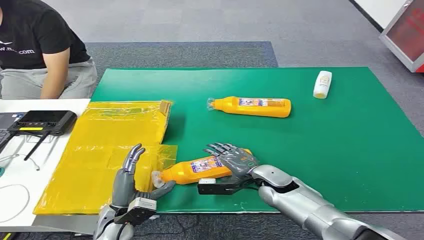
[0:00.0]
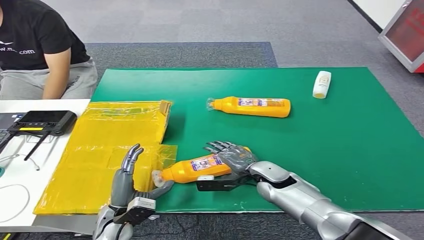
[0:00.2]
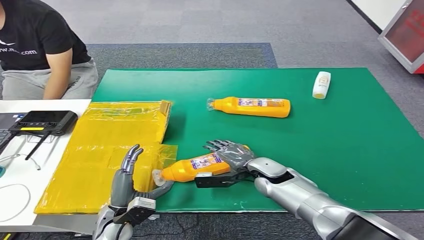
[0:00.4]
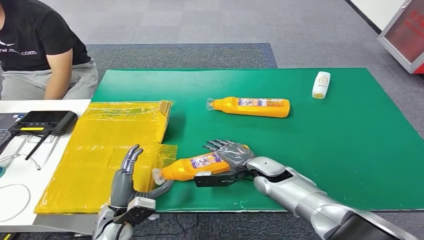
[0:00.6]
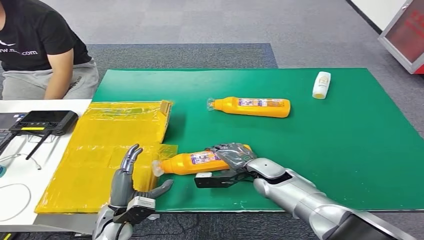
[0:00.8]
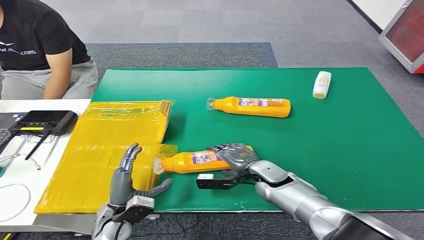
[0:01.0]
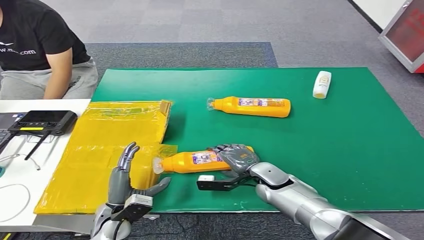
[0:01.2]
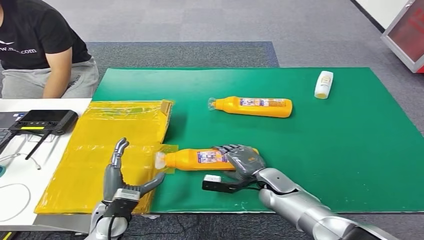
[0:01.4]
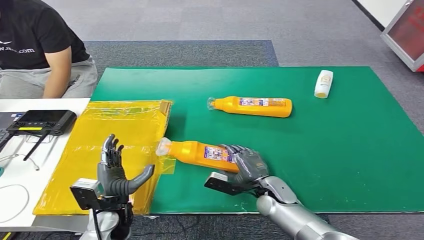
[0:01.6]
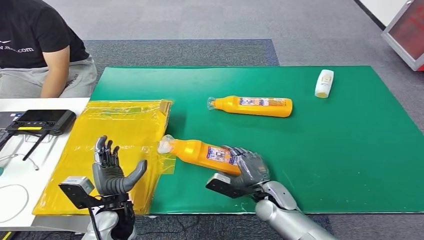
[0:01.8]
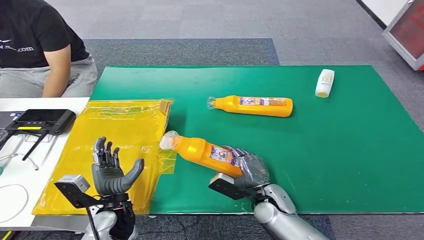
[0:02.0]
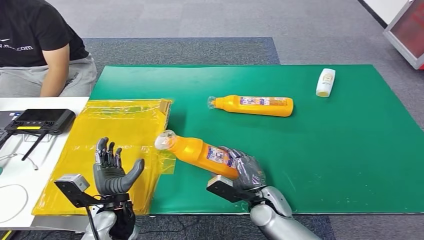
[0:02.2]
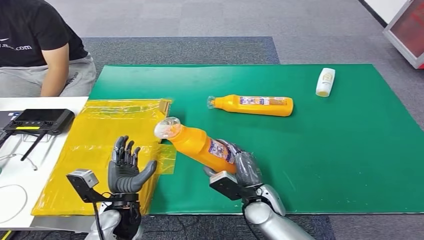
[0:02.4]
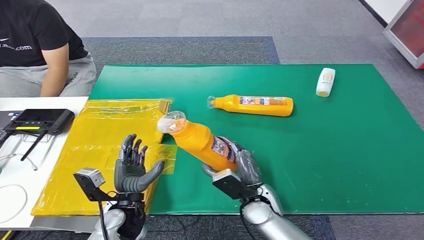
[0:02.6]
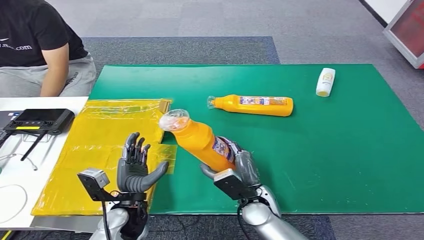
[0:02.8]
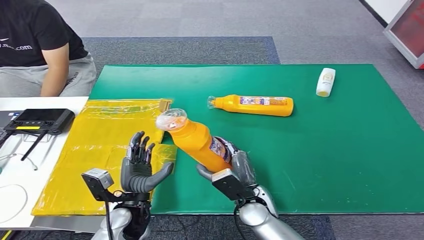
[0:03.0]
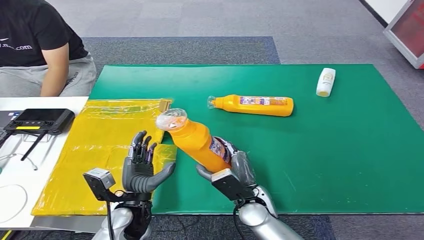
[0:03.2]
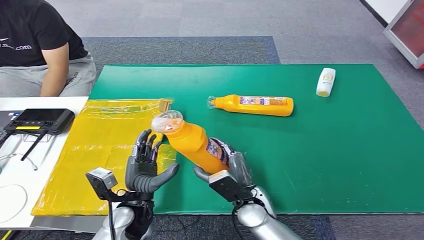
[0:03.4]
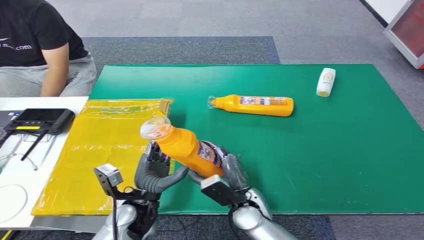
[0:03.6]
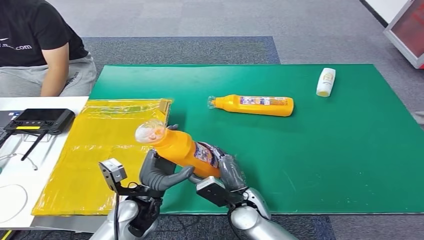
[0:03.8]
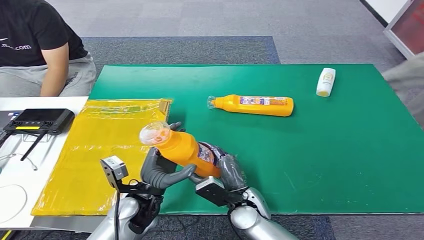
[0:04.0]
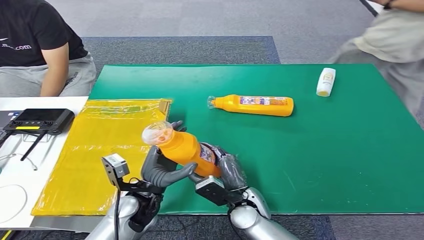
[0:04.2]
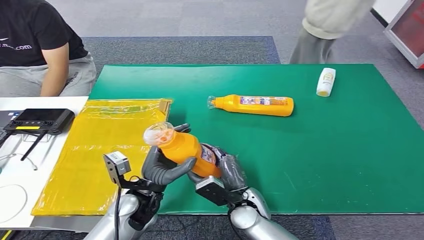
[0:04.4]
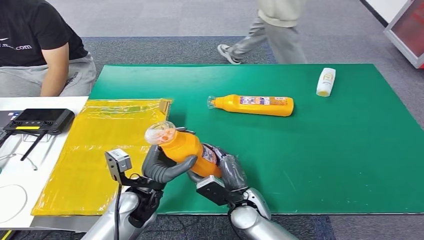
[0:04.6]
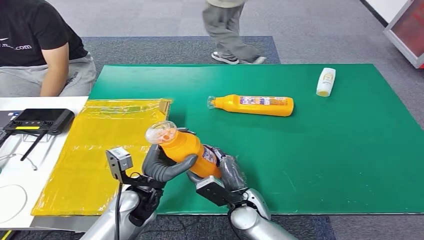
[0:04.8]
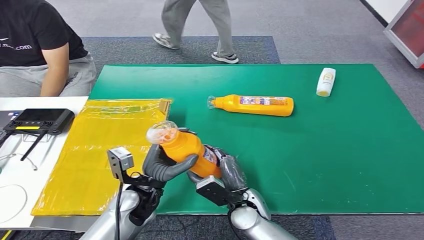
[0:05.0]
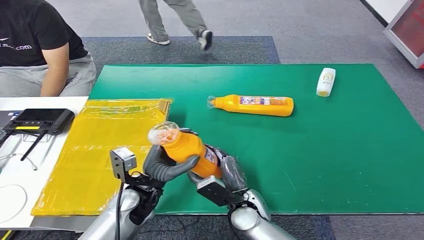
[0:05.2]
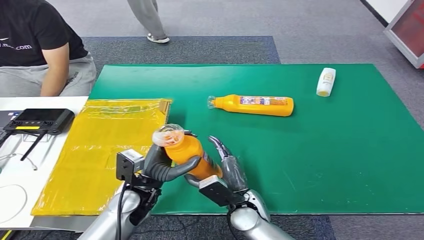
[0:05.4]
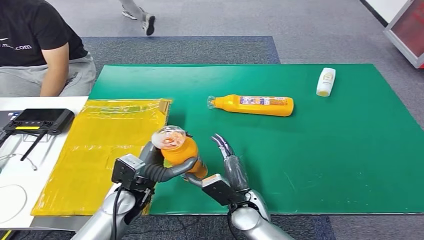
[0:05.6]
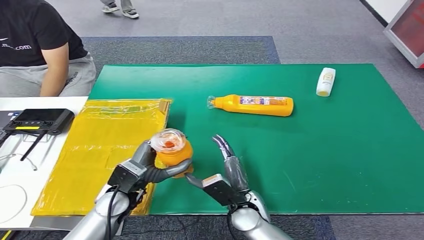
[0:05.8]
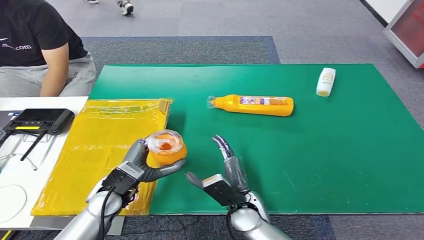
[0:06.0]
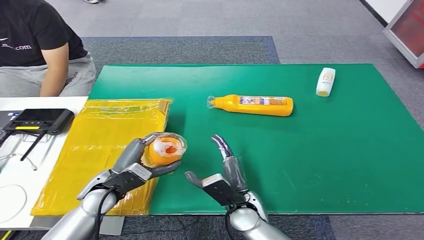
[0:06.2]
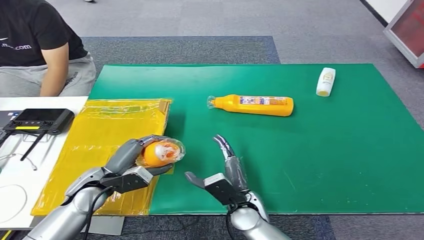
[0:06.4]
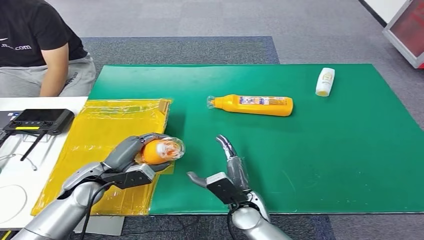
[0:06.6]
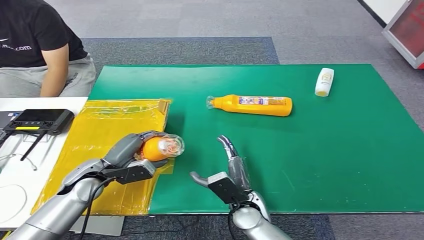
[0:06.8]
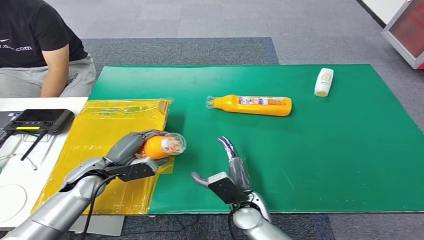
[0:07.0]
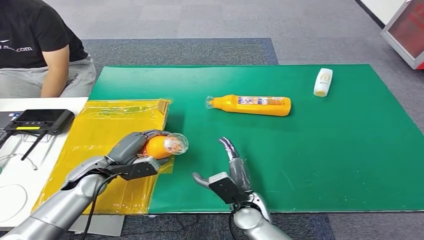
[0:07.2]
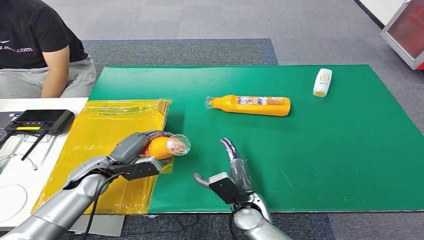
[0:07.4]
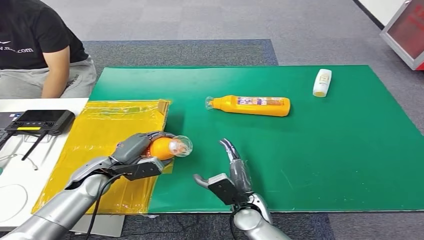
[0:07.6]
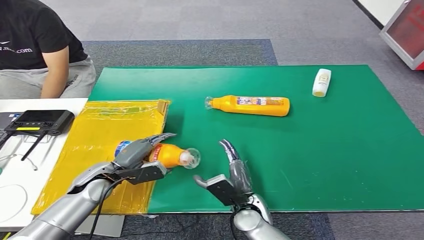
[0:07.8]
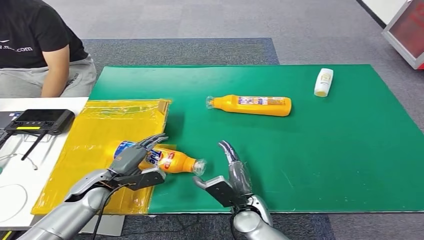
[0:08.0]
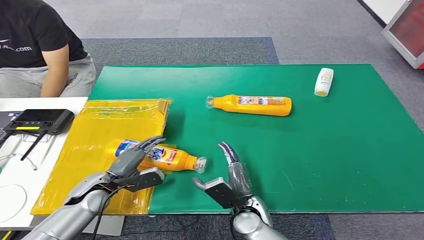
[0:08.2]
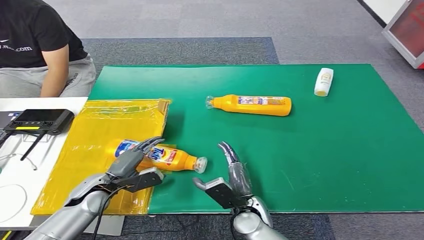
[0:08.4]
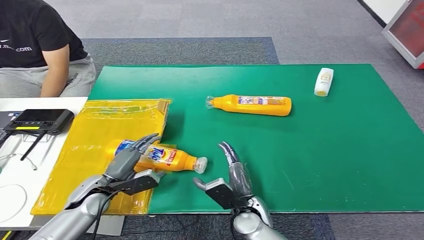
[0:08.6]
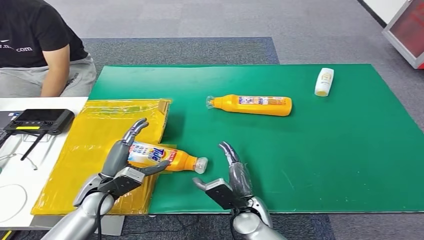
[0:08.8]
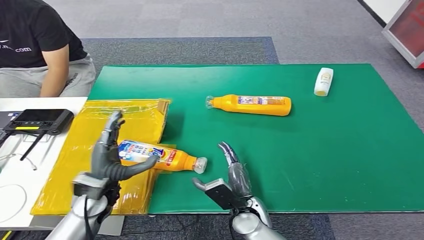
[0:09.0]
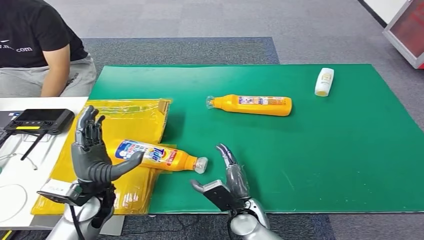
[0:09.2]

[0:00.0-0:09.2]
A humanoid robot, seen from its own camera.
Step, 0:00.0 to 0:02.4: Pick up the bottle from the table.
Step, 0:02.6 to 0:09.2: Turn the bottle to the front side.
0:04.6 to 0:06.2: The left hand is displaced to the left by some 10 cm.
0:06.2 to 0:07.6: The left hand changes place by about 5 cm.
0:07.6 to 0:09.2: The left hand is displaced backward by roughly 5 cm.

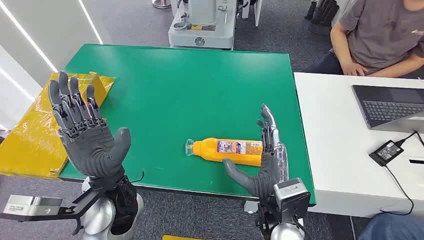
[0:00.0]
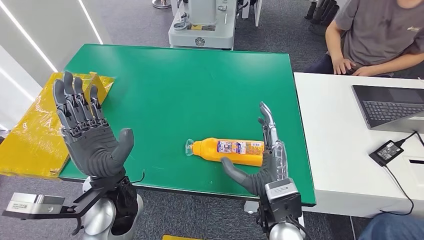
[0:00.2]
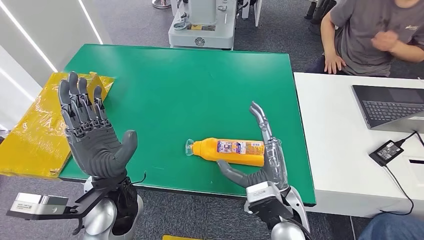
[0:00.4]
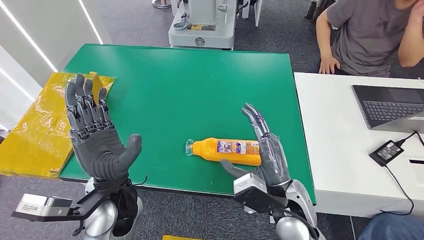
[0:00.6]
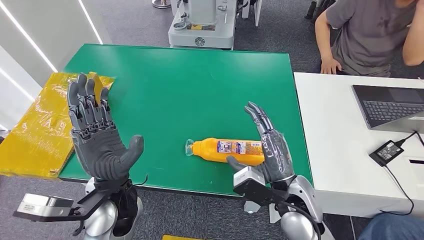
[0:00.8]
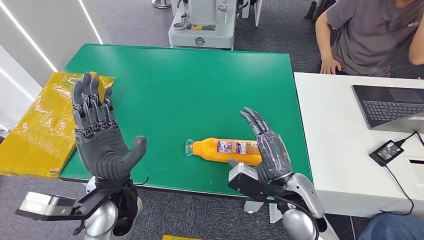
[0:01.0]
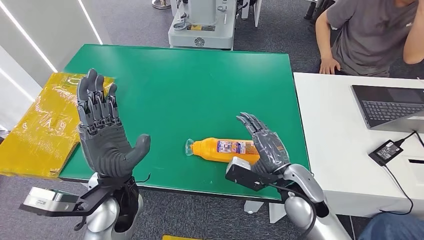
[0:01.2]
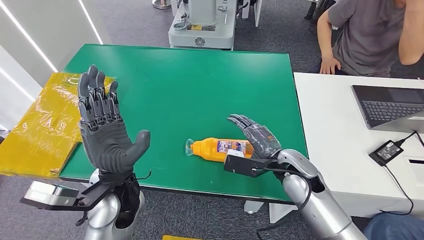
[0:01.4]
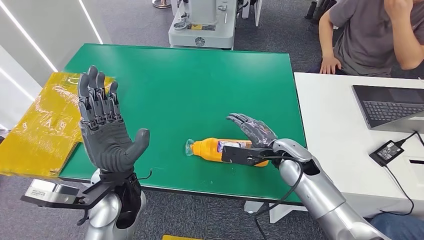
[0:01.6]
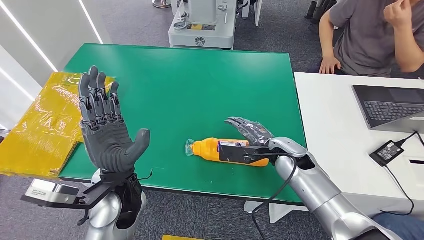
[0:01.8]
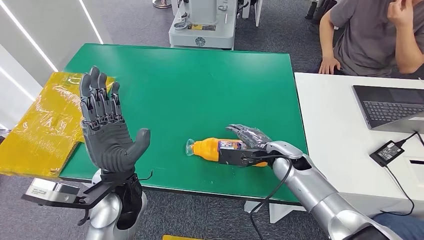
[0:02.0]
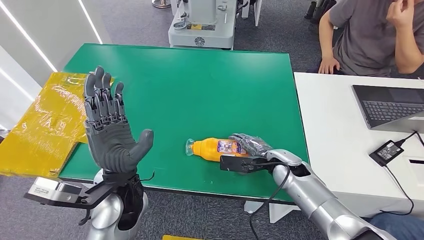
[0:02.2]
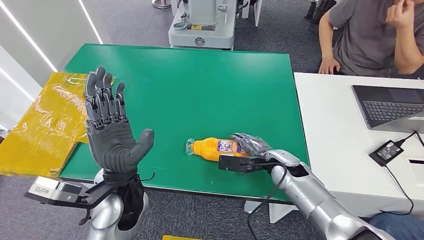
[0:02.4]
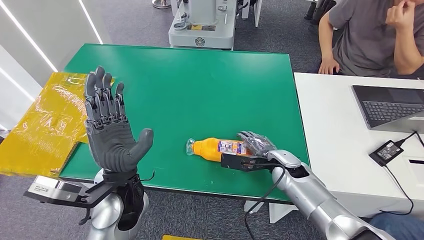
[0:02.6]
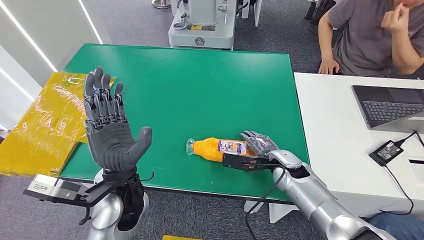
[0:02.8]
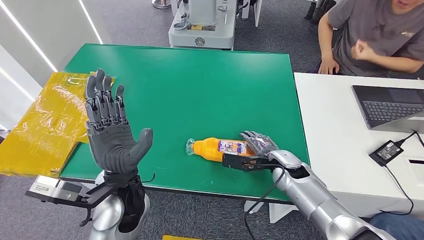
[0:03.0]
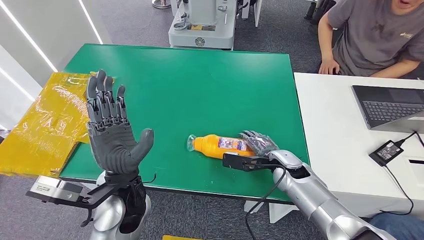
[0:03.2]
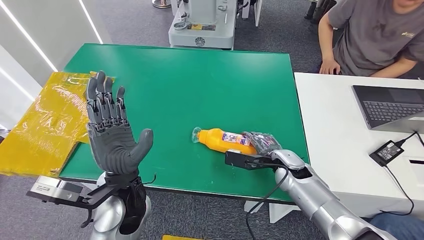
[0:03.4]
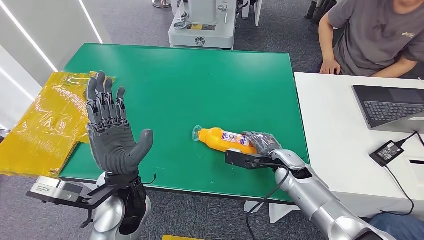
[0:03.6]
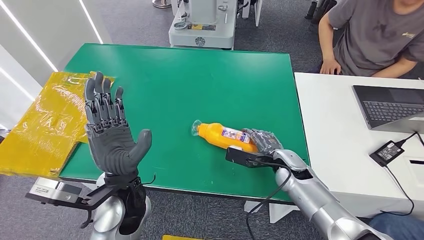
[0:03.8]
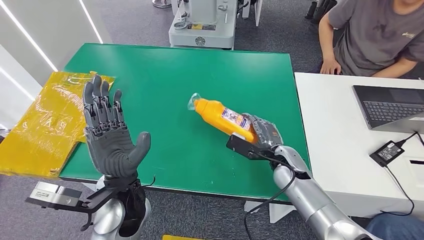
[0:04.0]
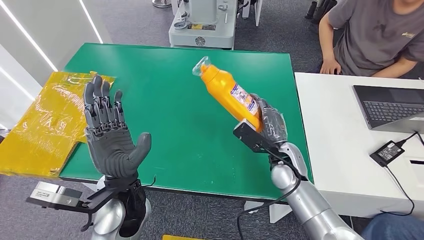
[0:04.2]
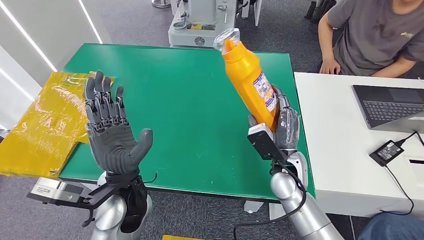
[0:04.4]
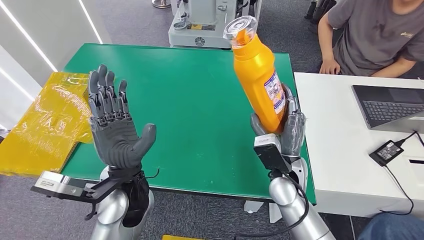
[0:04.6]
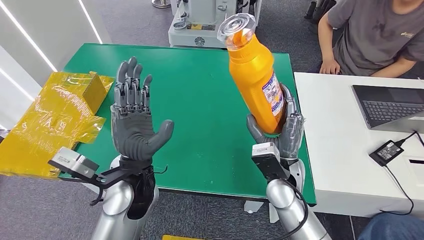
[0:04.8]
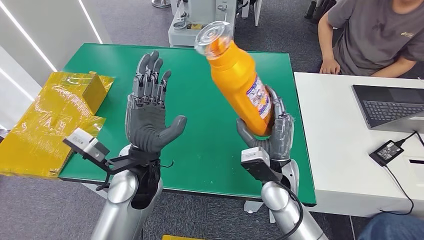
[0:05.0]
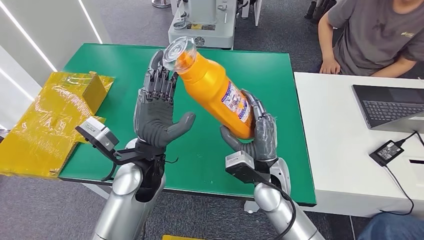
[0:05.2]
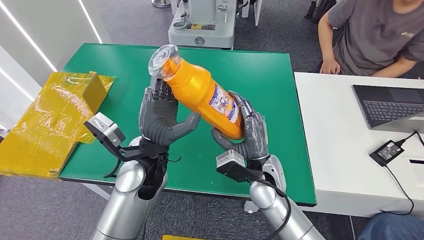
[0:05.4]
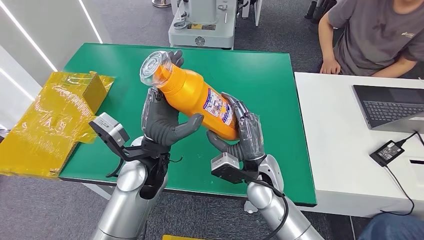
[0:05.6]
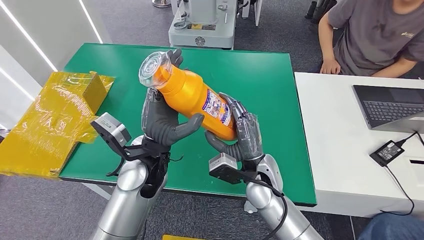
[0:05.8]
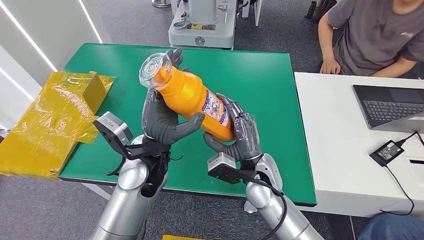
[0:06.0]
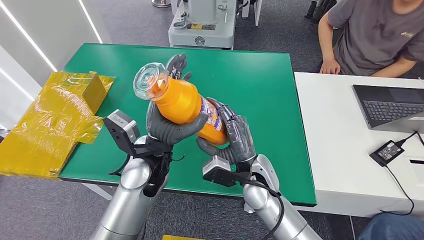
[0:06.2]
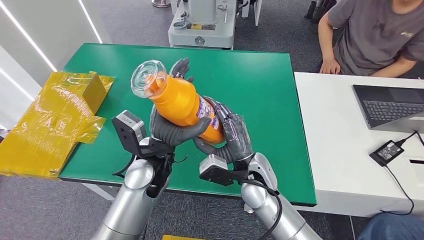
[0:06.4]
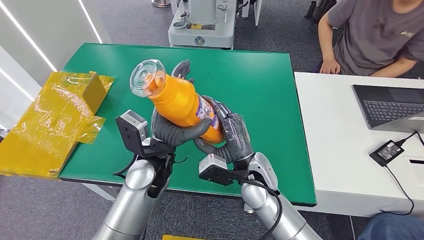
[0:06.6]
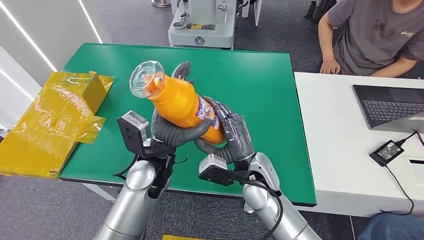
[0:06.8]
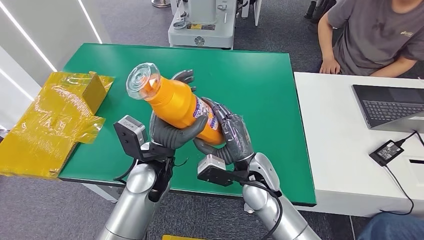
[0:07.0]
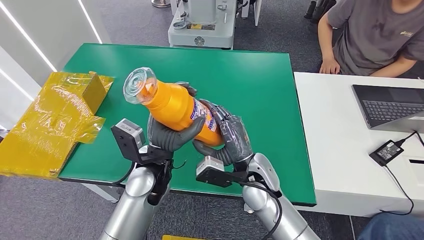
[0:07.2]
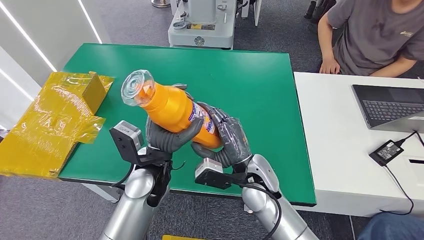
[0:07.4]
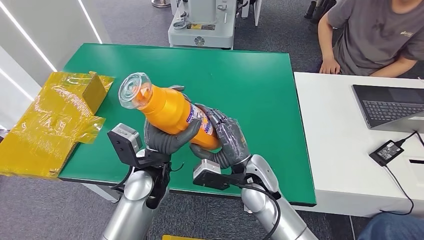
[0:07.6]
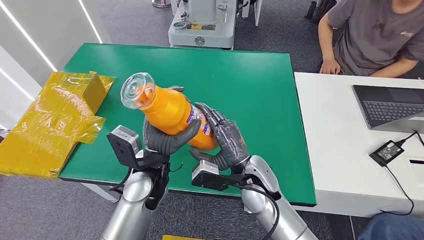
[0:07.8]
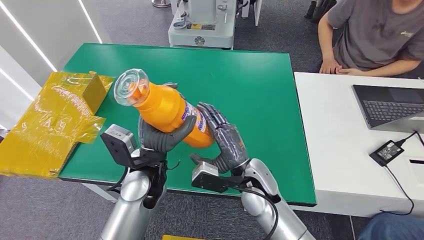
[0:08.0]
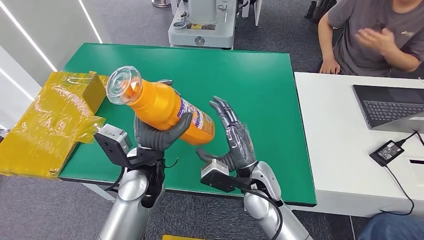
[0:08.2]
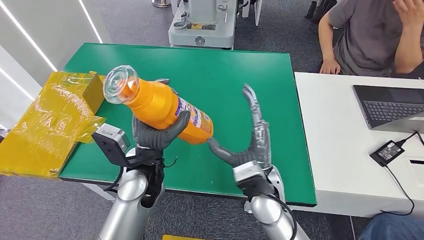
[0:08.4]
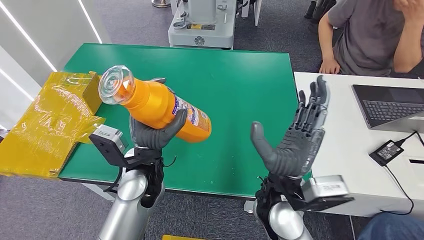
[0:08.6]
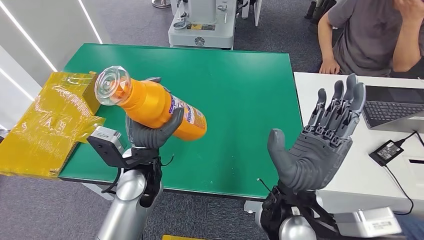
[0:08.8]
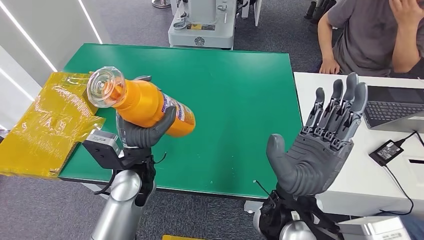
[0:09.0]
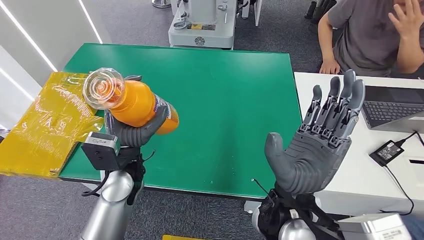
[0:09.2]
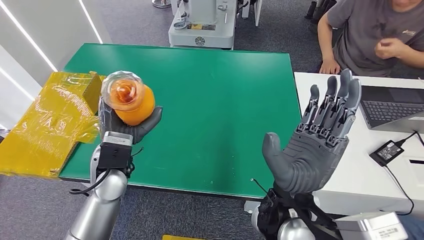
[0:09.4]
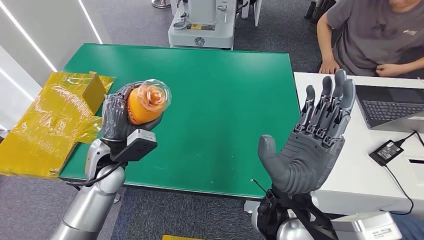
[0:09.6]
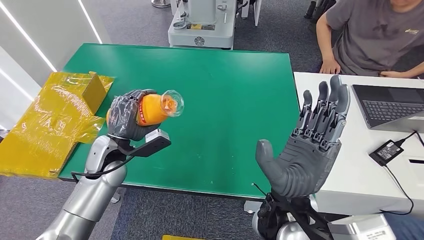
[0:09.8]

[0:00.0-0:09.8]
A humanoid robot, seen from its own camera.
Step, 0:00.0 to 0:04.6: Pick up the bottle from the table.
0:01.4 to 0:02.8: The right hand shifts by approximately 5 cm.
0:05.6 to 0:07.0: There are only small adjustments of the hands.
